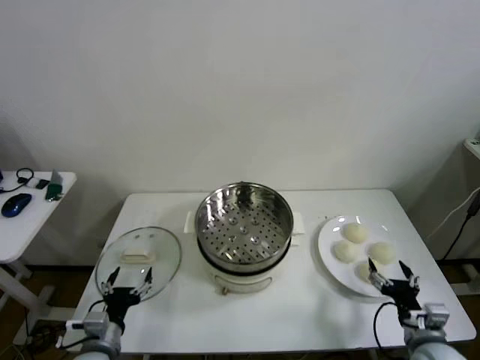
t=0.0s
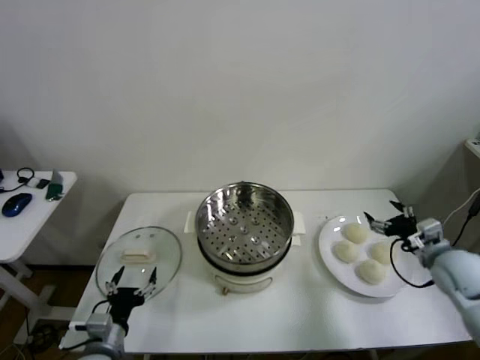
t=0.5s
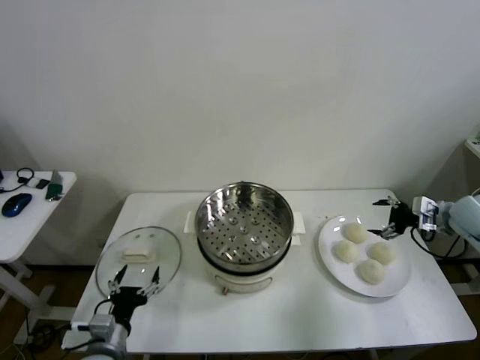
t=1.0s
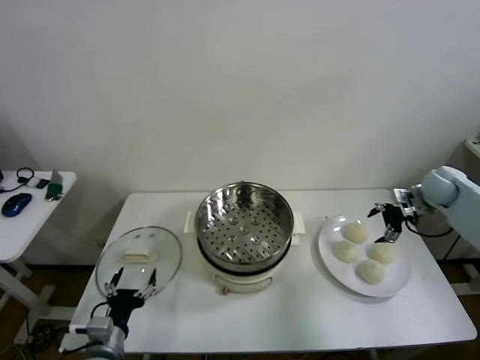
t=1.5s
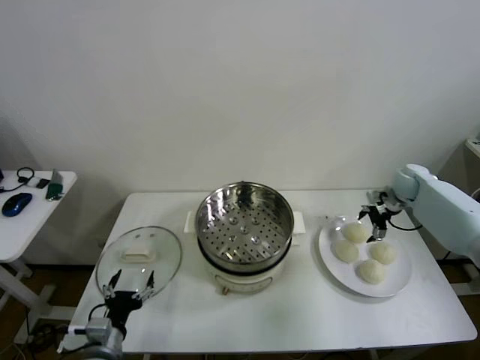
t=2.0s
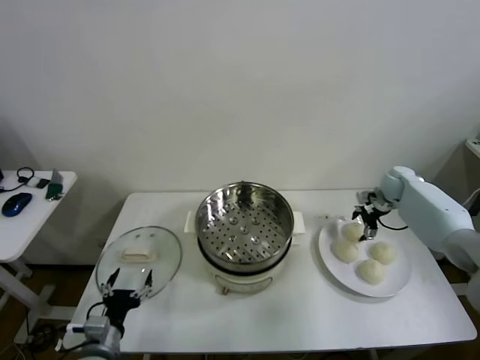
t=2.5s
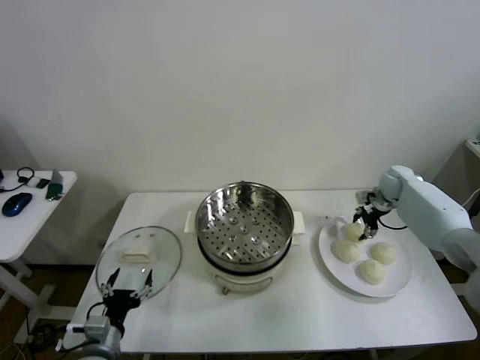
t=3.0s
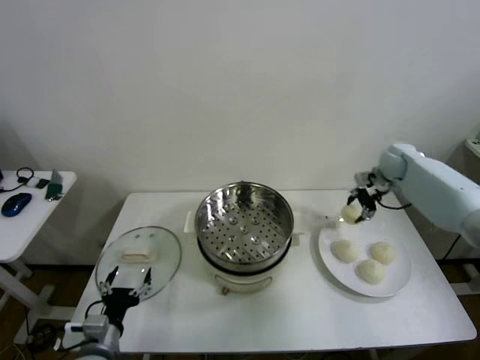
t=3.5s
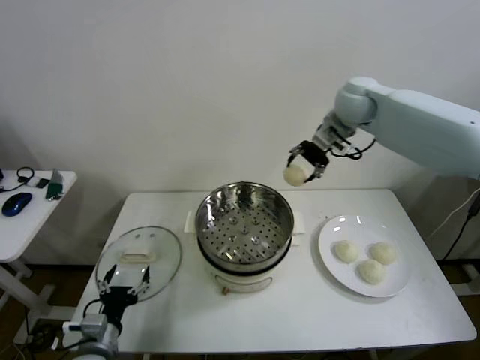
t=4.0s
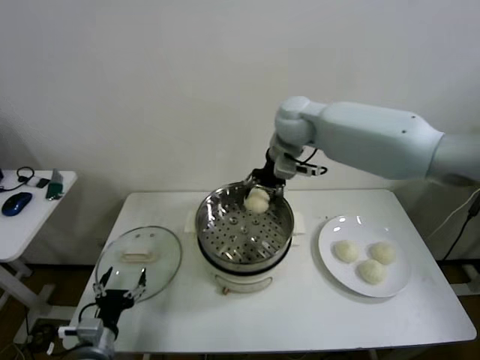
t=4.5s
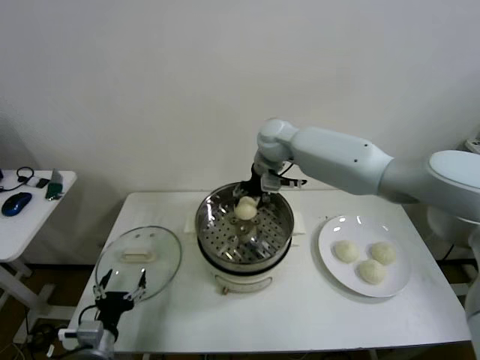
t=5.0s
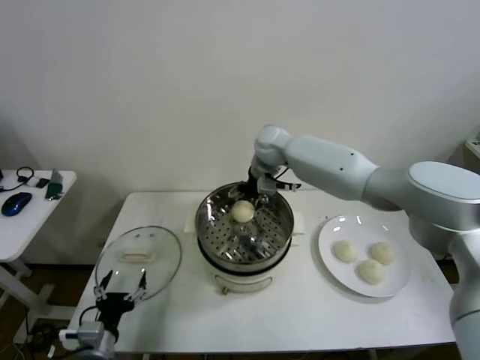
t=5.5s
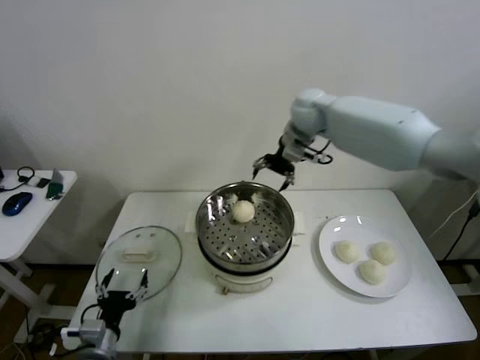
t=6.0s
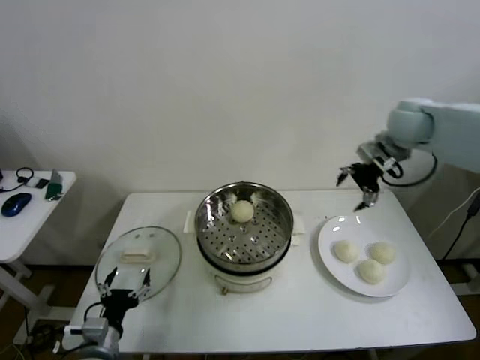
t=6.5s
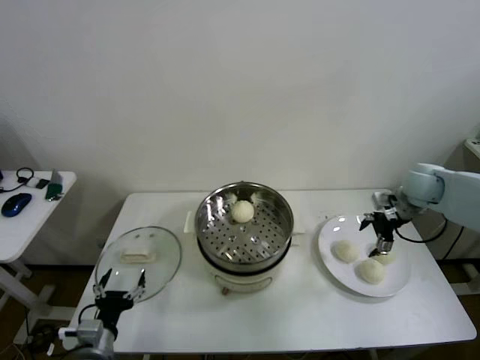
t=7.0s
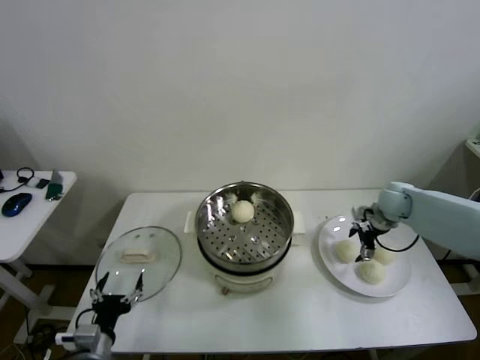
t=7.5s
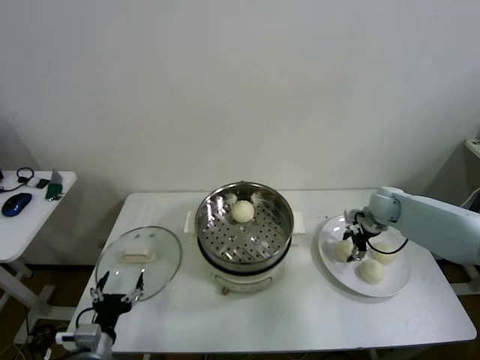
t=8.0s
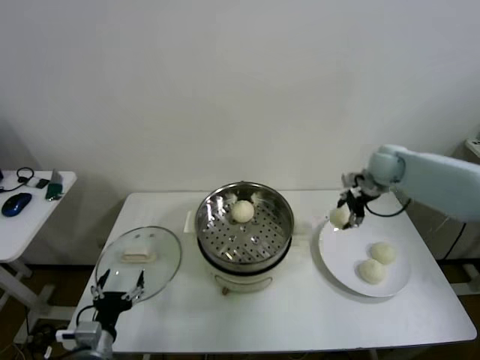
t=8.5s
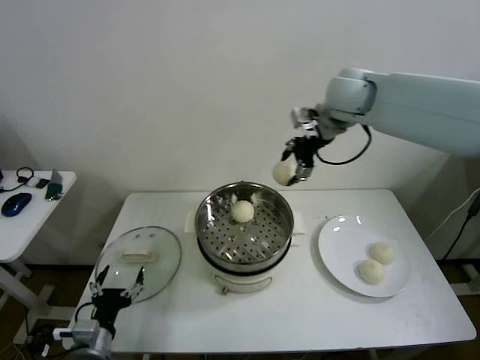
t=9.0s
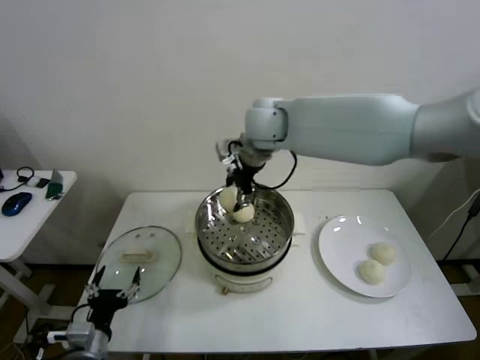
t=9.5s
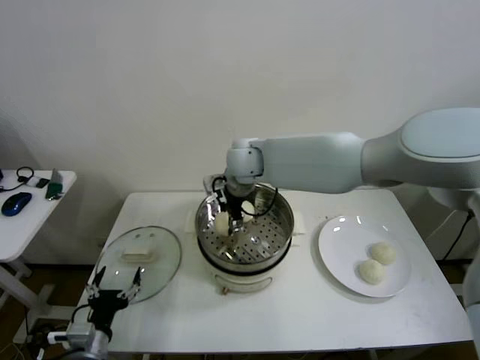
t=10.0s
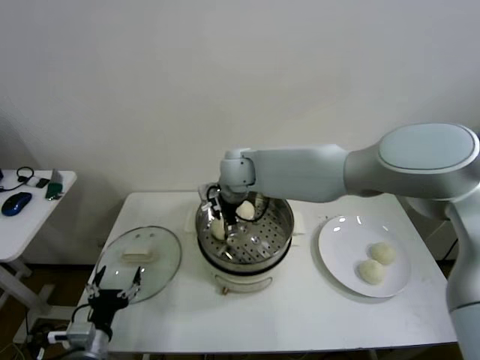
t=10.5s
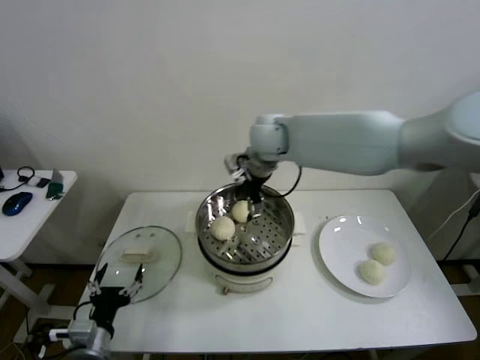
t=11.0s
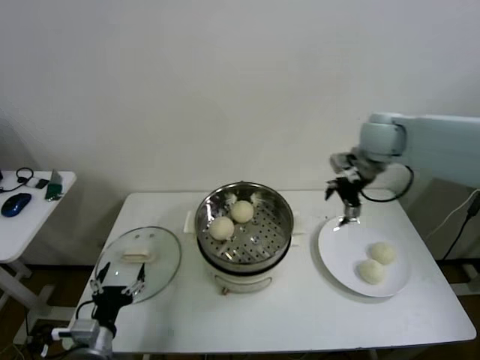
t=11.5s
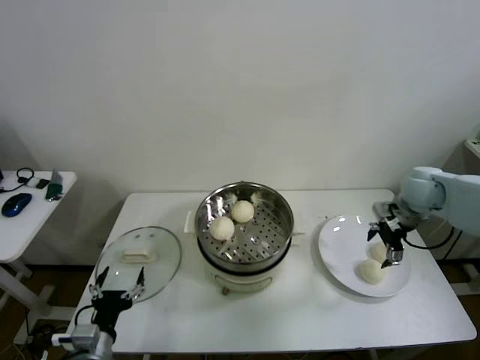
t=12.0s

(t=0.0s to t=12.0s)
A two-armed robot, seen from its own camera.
Step, t=0.0s - t=2.5s: Grasp the baozi in the plate with right gripper.
Step, t=3.5s - t=5.0s: Place the baozi on the steamer with right gripper.
Step, t=6.0s - t=7.5s: Grasp the baozi in the plate with right gripper.
Step, t=8.0s - t=10.5s: Place the baozi on the steamer with right gripper.
t=2.0s - t=4.0s: The right gripper goes approximately 35 cm upward and to the left, and closes its fingers.
t=4.0s - t=6.0s: The right gripper travels downward and back again, approximately 15 cm each way, and opens its fingers.
t=6.0s - t=8.0s: The right gripper heads downward and to the right, covering about 35 cm, and closes up.
t=8.0s - t=10.0s: The right gripper shifts approximately 40 cm to the left and upward.
t=10.0s - t=12.0s: The right gripper heads to the right, covering approximately 40 cm, and opens up.

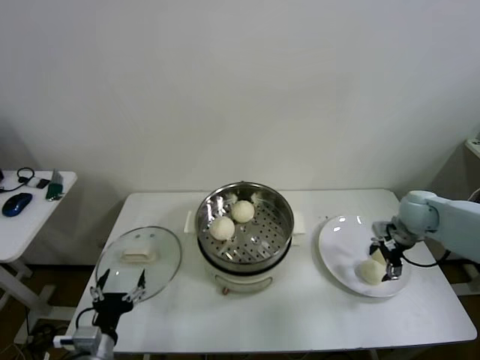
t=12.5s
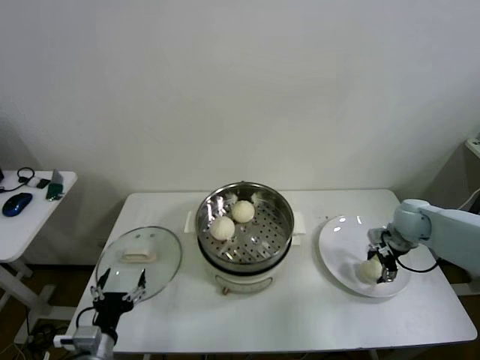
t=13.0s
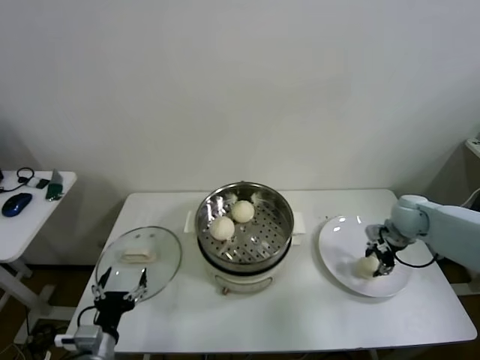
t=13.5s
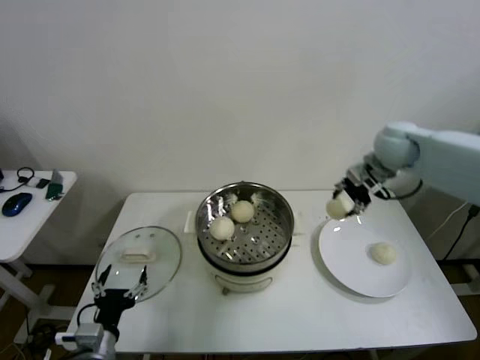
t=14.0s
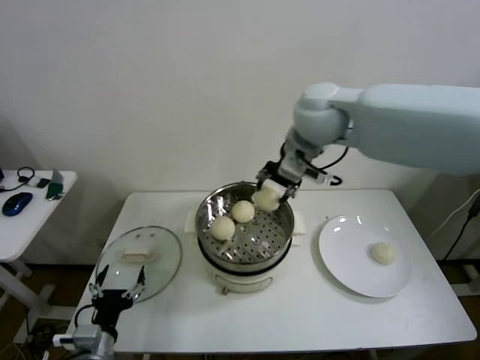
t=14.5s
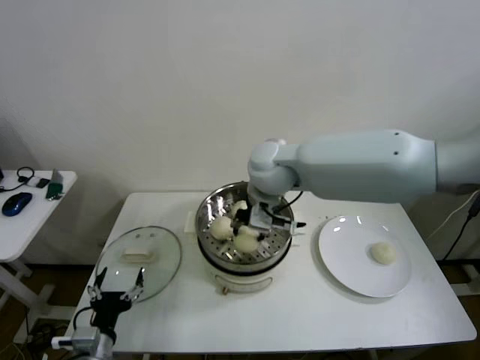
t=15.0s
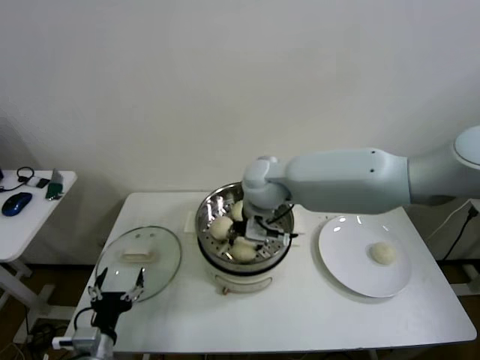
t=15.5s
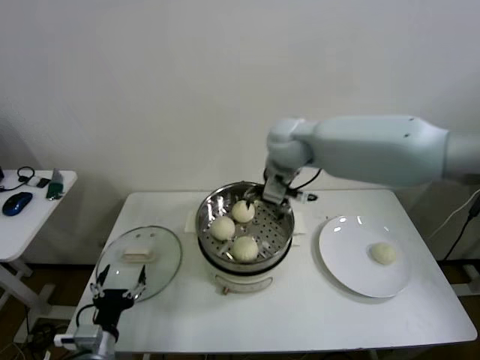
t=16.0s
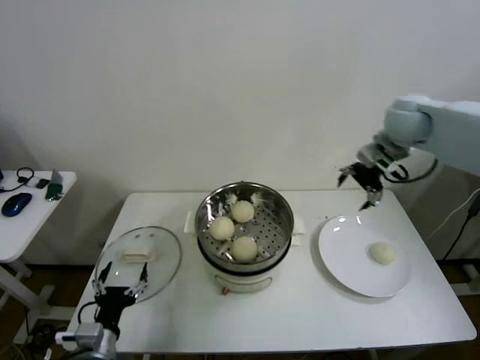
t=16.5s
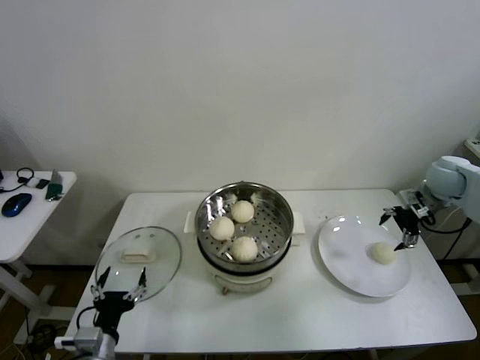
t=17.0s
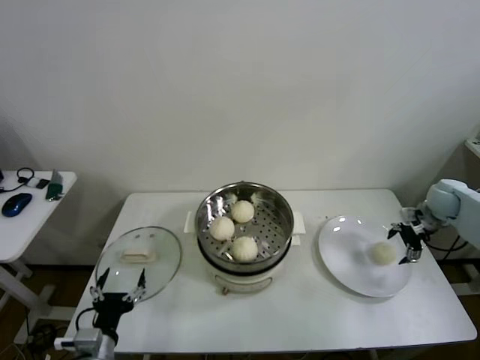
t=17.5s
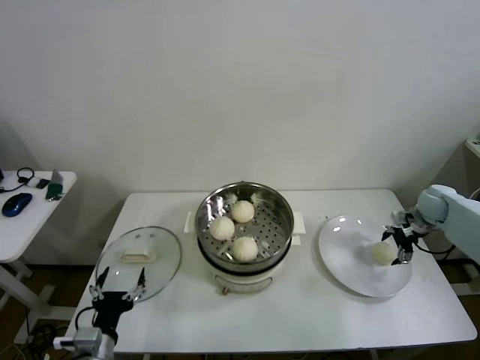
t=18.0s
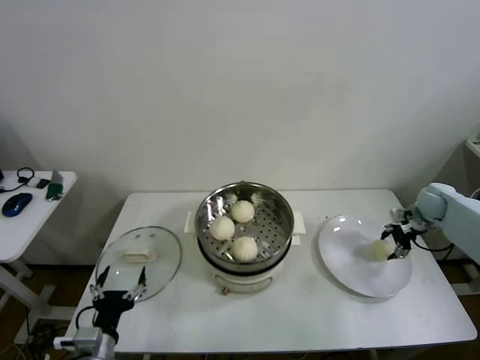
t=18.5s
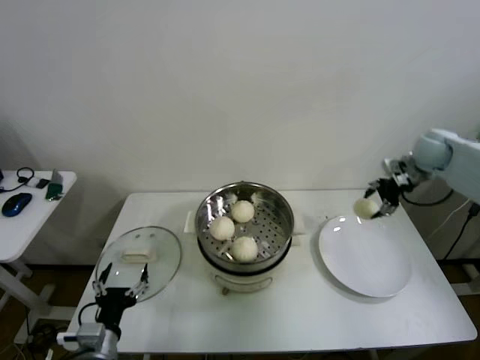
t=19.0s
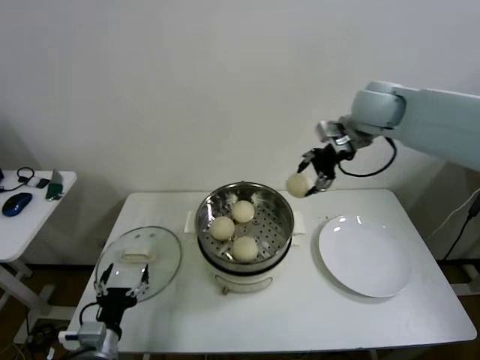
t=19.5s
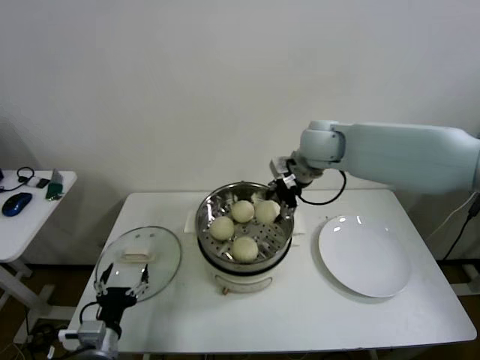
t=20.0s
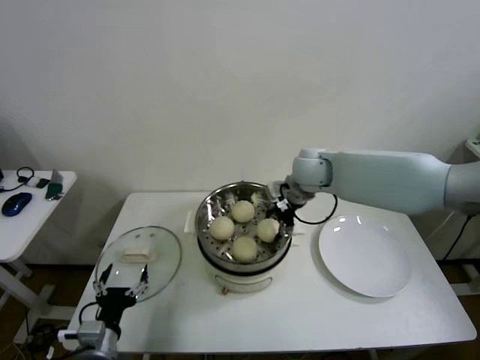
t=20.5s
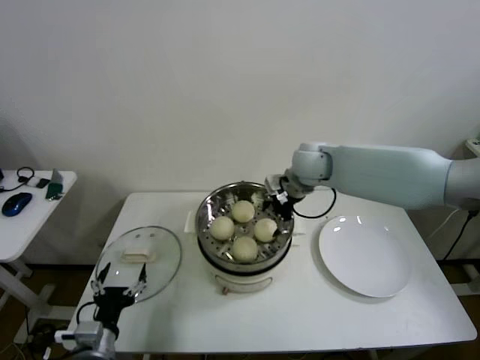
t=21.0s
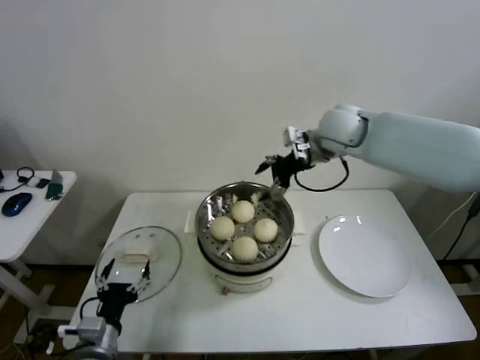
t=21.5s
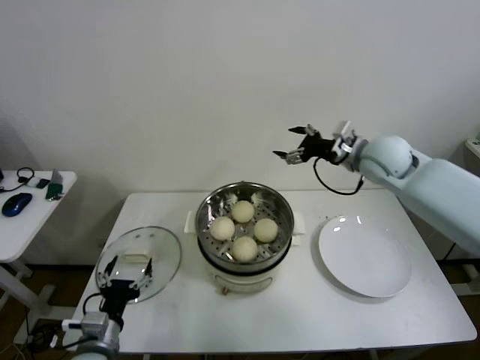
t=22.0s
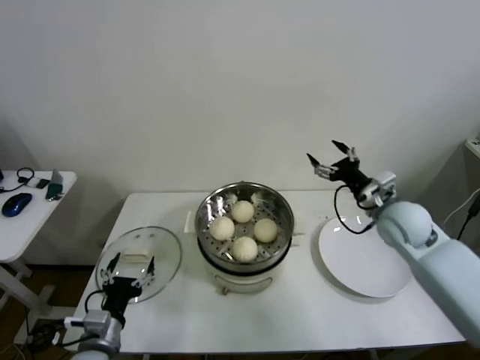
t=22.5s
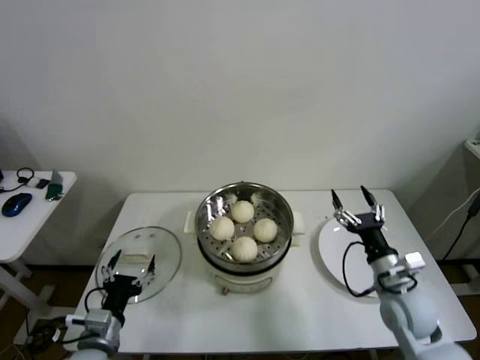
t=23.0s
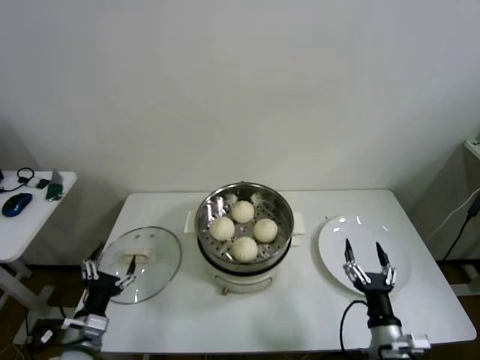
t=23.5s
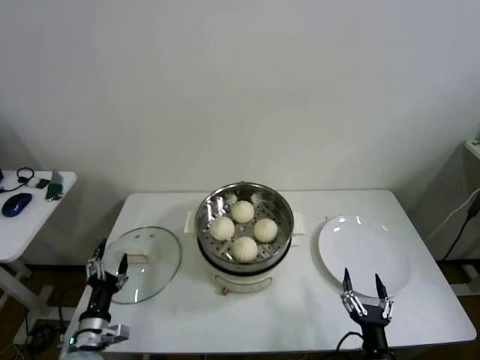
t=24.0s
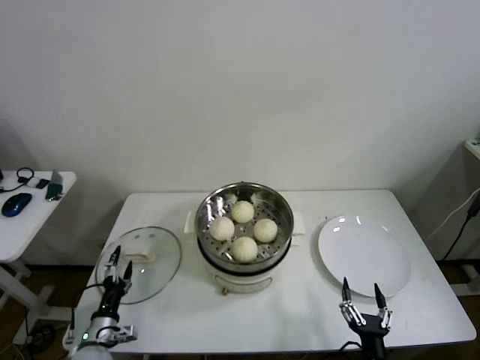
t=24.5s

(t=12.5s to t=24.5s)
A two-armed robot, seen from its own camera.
Step, t=13.5s - t=15.5s: Place the baozi on the steamer with right gripper.
Step, t=16.0s - t=18.0s: Grasp the baozi in the plate with right gripper.
Step, t=18.5s - t=20.5s: Place the baozi on the steamer with right gripper.
t=12.5s - t=14.5s: The right gripper shifts some 40 cm to the left and upward, and closes.
t=14.5s - t=16.5s: The right gripper shifts about 25 cm to the right, and opens its fingers.
t=16.5s - t=18.5s: The right gripper is displaced downward and to the right by roughly 25 cm, and closes up.
t=18.5s - t=20.5s: The right gripper travels to the left by about 35 cm.
t=20.5s - t=22.5s: The right gripper shifts roughly 20 cm to the right and backward, and opens its fingers.
t=22.5s - t=24.5s: The right gripper heads backward and downward, covering about 40 cm; the left gripper goes approximately 15 cm downward and to the left.

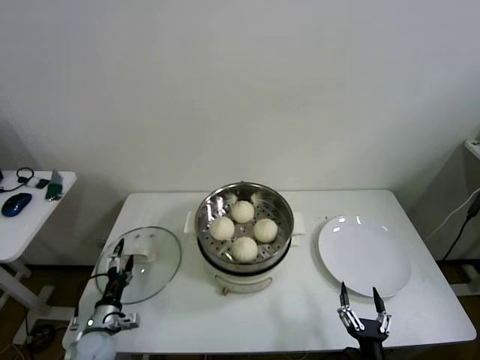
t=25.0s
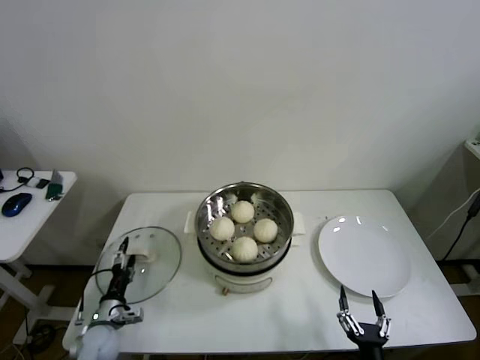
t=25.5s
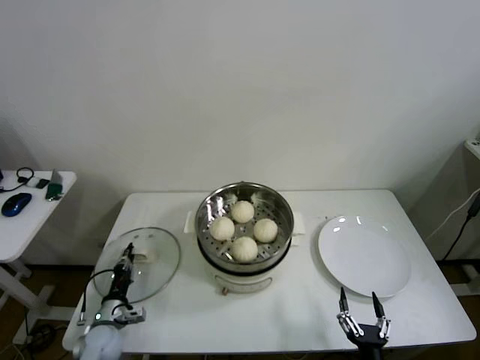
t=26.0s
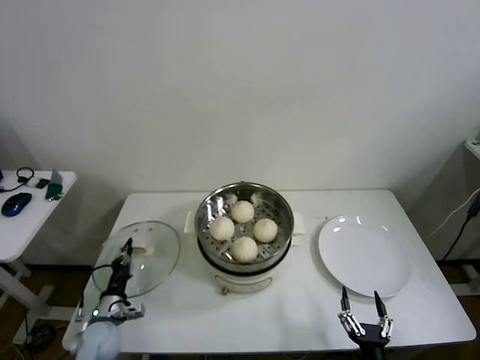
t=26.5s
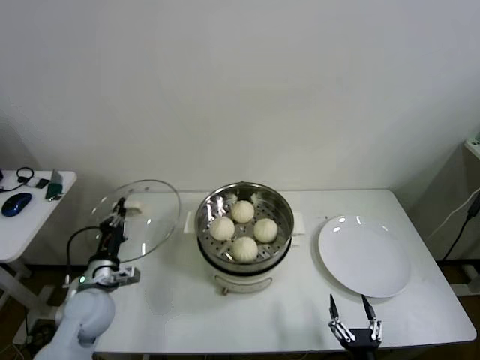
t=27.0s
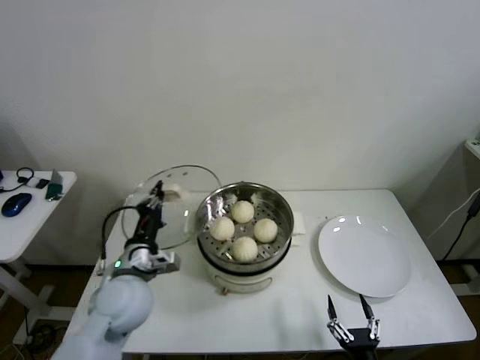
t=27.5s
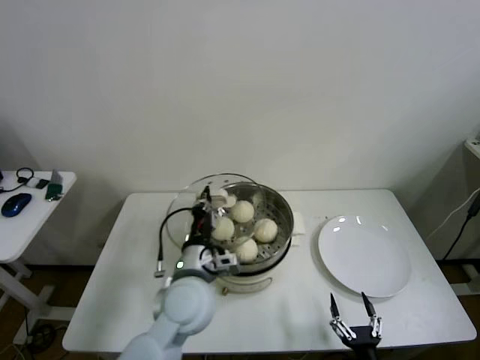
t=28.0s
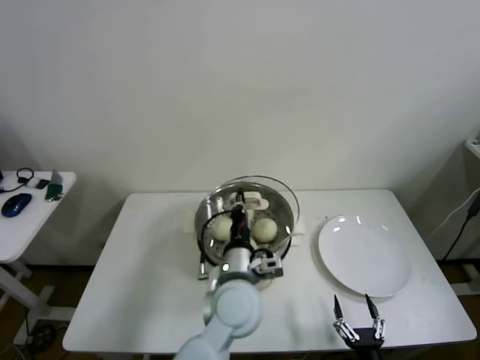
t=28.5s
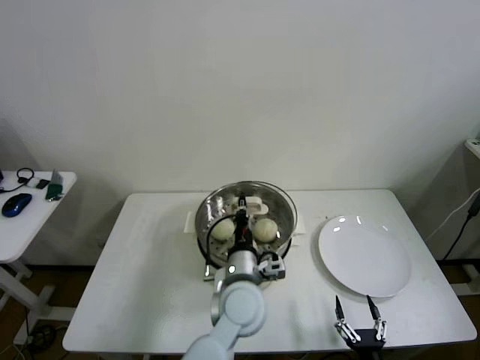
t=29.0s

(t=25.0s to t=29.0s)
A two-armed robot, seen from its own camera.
t=25.0s - t=27.0s: The left gripper shifts some 15 cm upward, and closes its fingers.
t=27.0s - t=29.0s: The left gripper travels to the right by about 35 cm.
